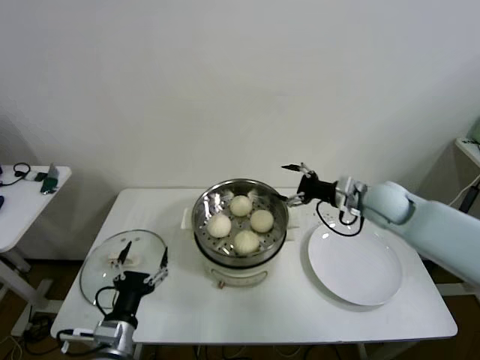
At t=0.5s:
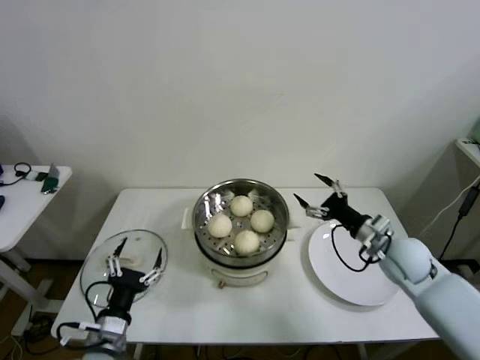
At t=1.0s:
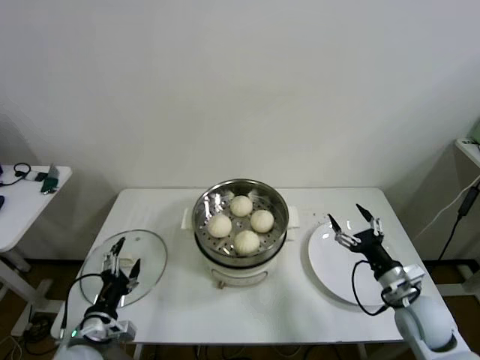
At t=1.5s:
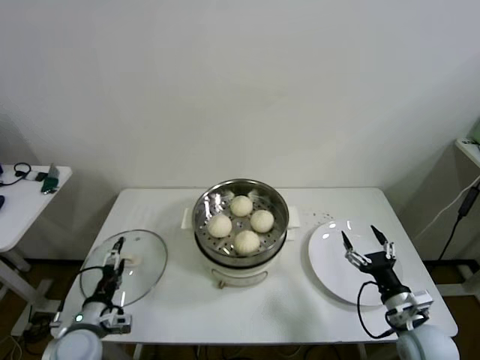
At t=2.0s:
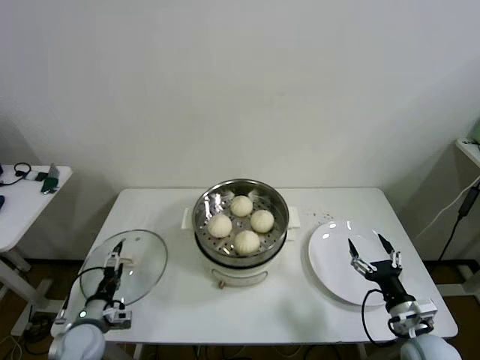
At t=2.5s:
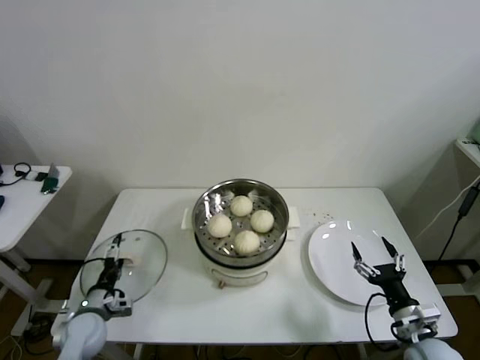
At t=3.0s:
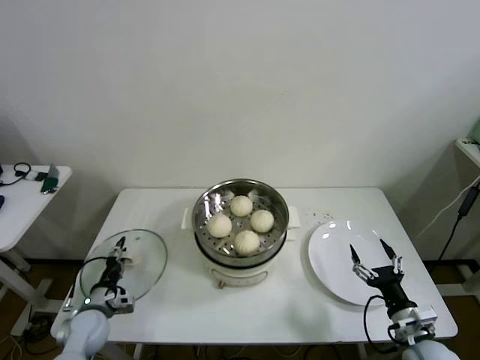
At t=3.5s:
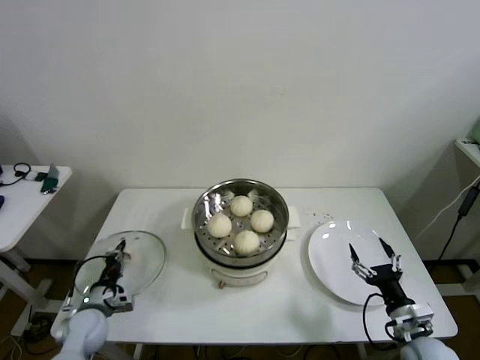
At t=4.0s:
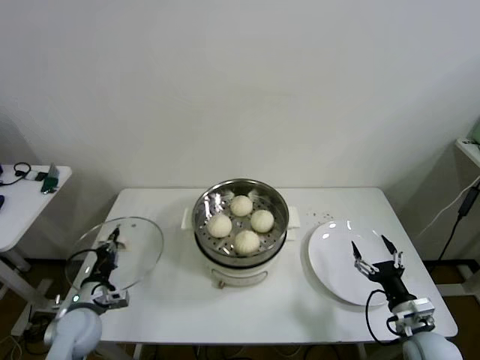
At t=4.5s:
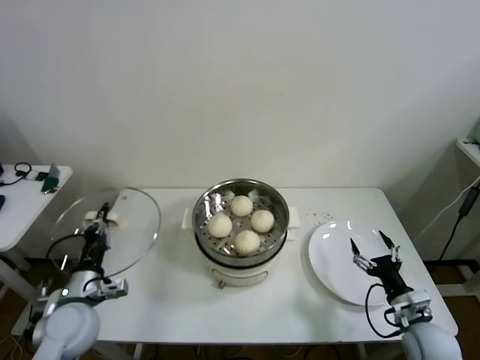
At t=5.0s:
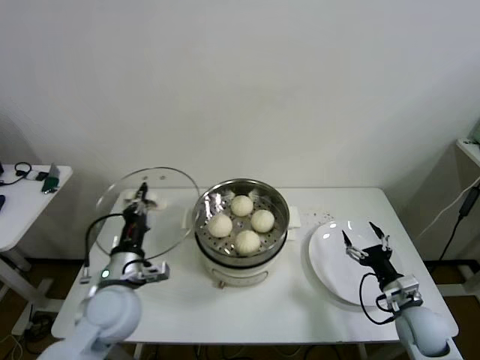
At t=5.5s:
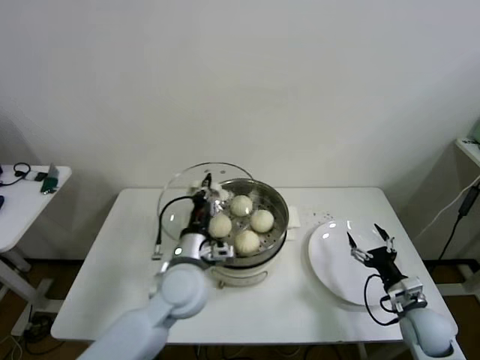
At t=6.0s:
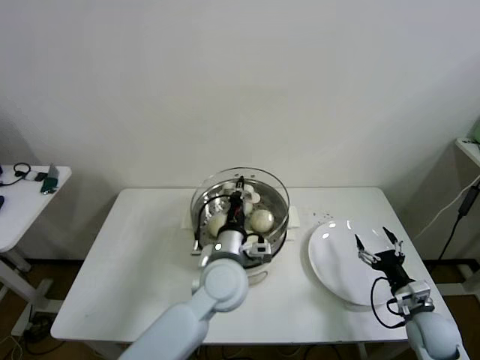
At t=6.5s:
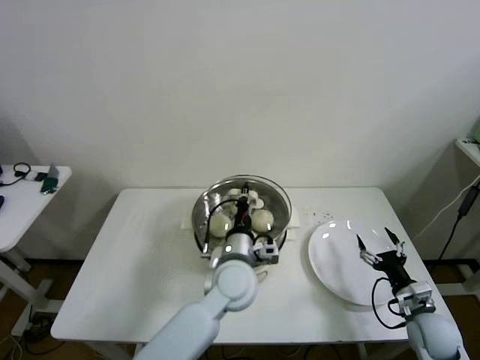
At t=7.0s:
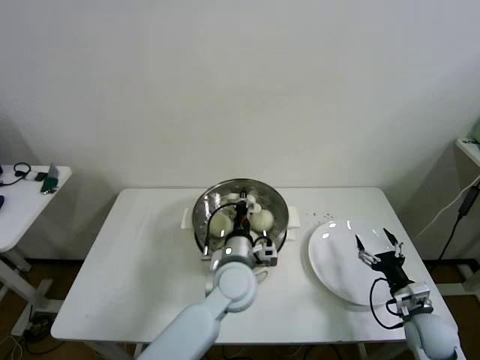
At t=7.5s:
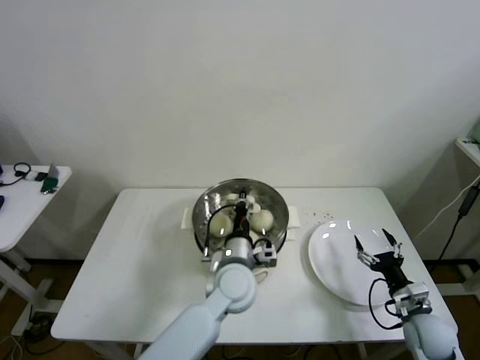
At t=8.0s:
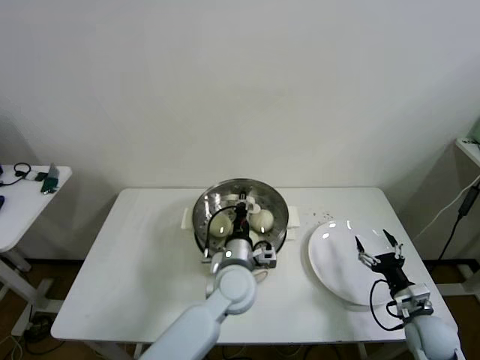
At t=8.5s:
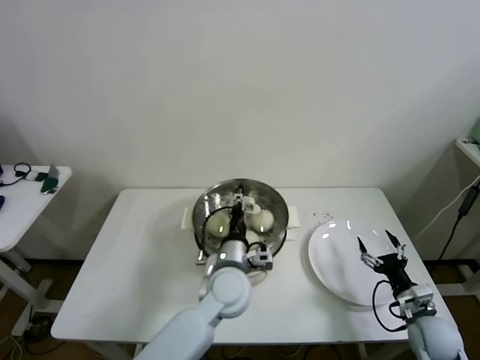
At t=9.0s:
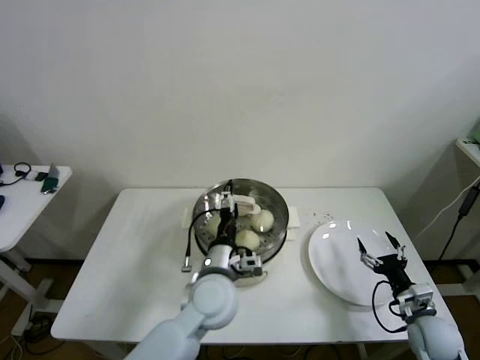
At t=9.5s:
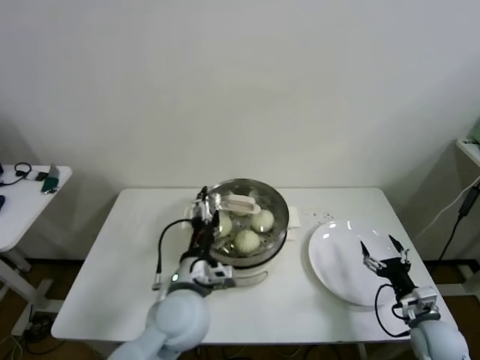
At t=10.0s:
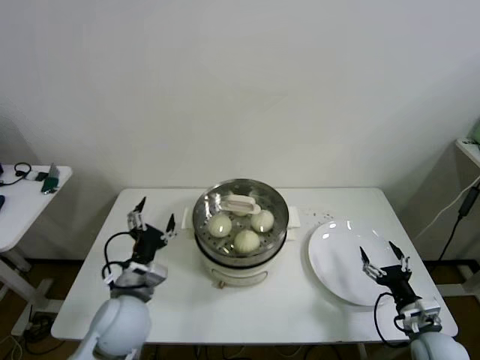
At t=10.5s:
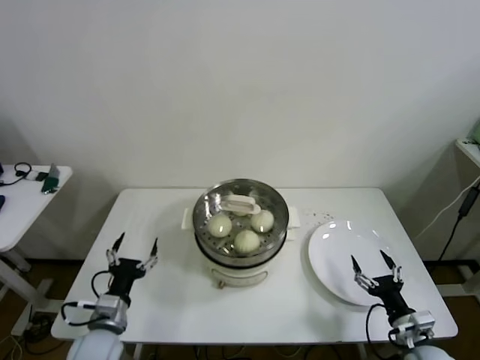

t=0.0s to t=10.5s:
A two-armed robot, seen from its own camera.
Step, t=0.0s to t=3.0s: Grasp the pot lid with left gripper.
Step, t=3.5s to t=8.0s: Place the pot lid on the steamer with left gripper.
t=0.0s to t=2.0s: The left gripper heads to the left, downward and forward, covering some 15 cm; the right gripper moves backward and downward, about 30 cm.
t=2.0s to t=4.0s: The left gripper closes up.
t=4.0s to t=6.5s: The left gripper moves to the right, about 35 cm; the right gripper shifts by some 5 cm.
t=6.5s to t=8.5s: The left gripper opens.
t=8.5s to t=10.5s: The left gripper goes about 25 cm to the left, and opens its fingers. Meanwhile the right gripper goes approximately 5 cm backward.

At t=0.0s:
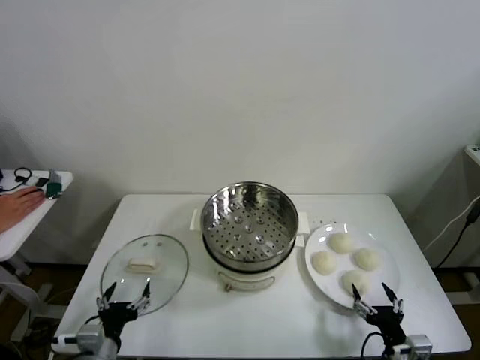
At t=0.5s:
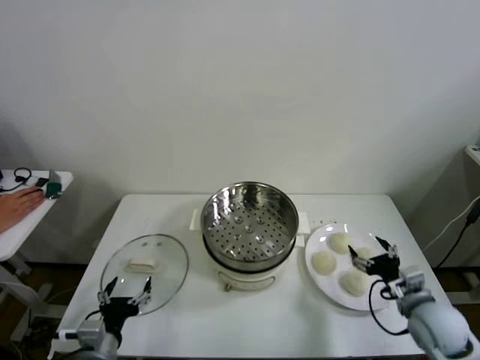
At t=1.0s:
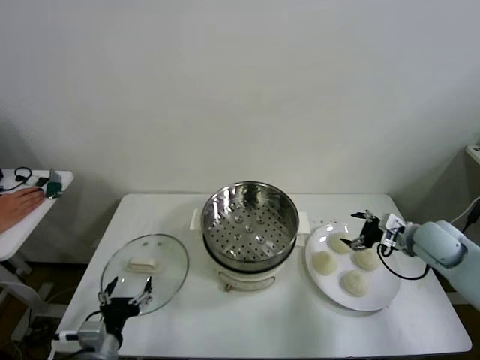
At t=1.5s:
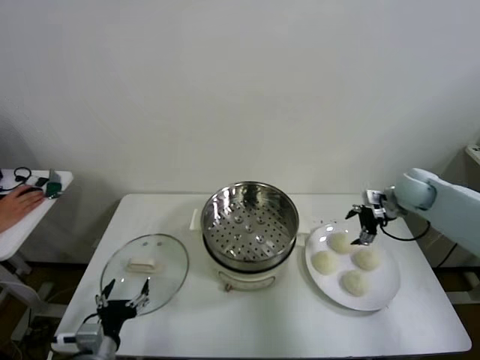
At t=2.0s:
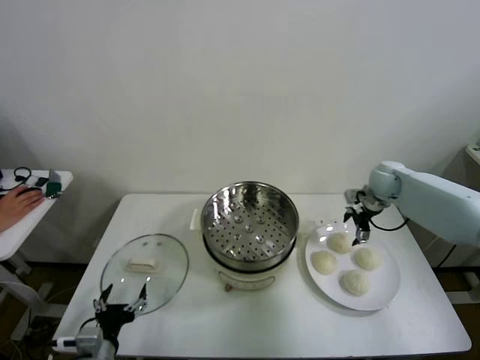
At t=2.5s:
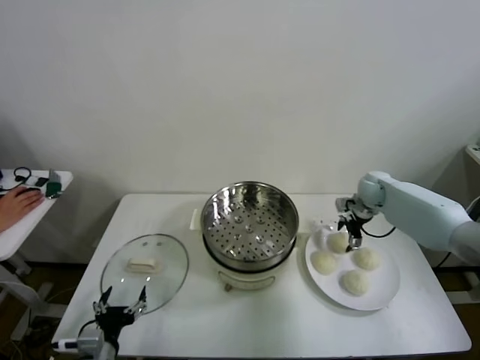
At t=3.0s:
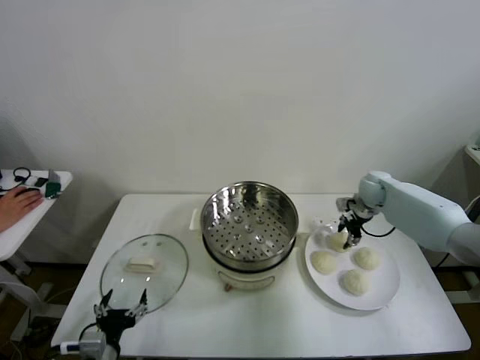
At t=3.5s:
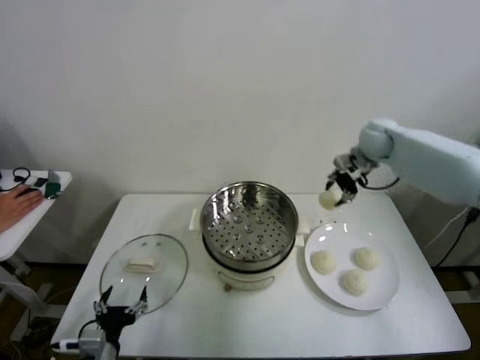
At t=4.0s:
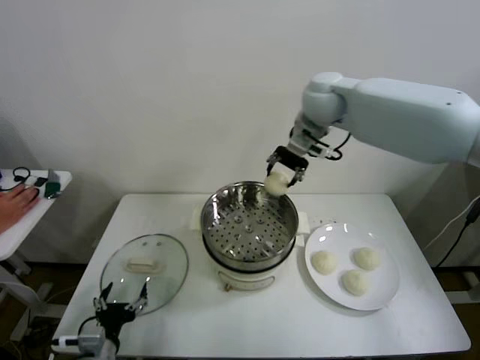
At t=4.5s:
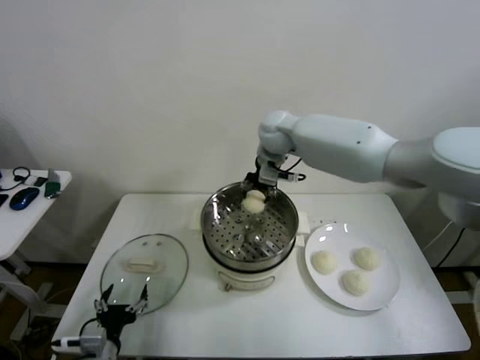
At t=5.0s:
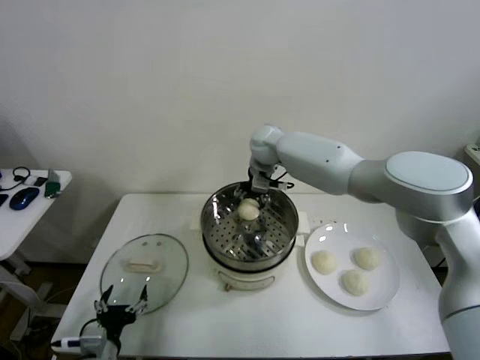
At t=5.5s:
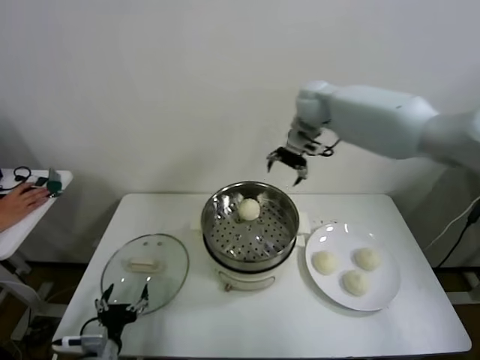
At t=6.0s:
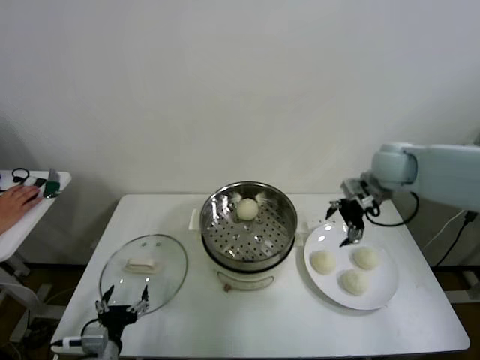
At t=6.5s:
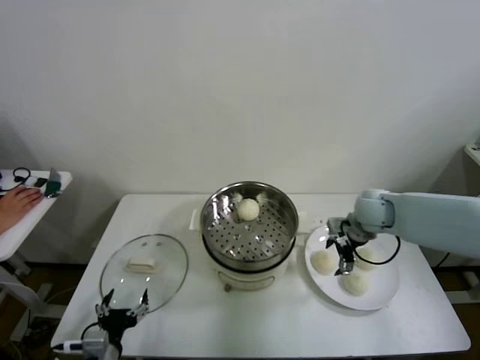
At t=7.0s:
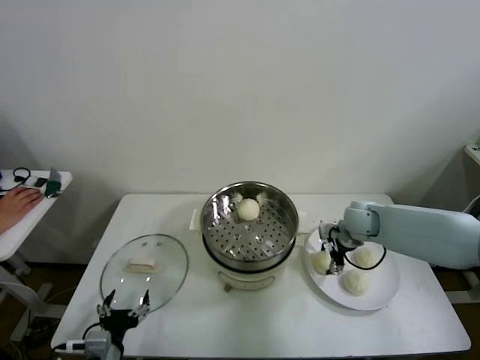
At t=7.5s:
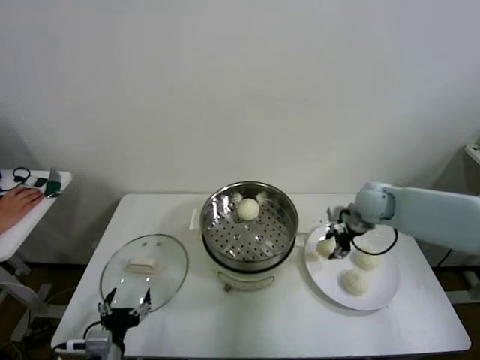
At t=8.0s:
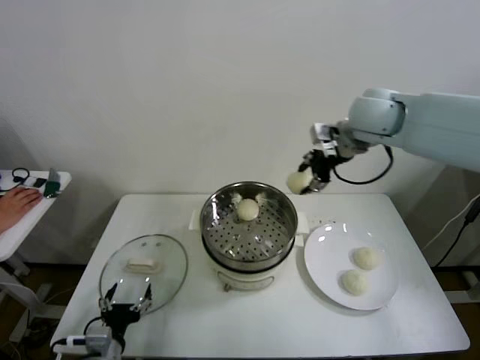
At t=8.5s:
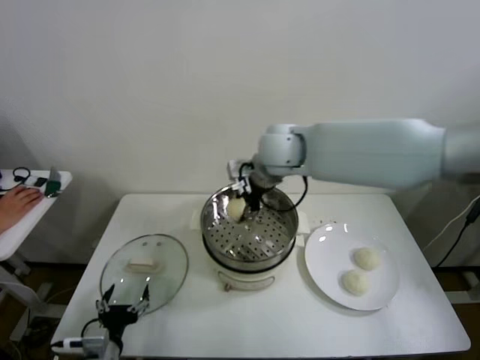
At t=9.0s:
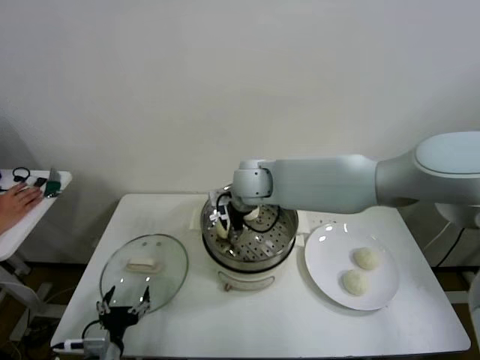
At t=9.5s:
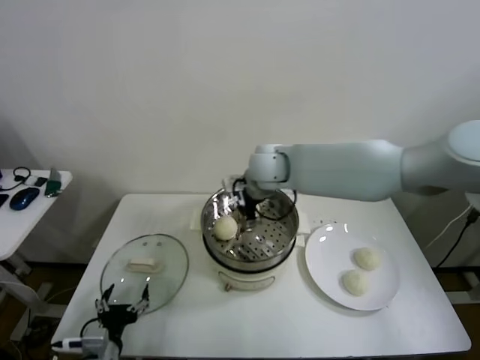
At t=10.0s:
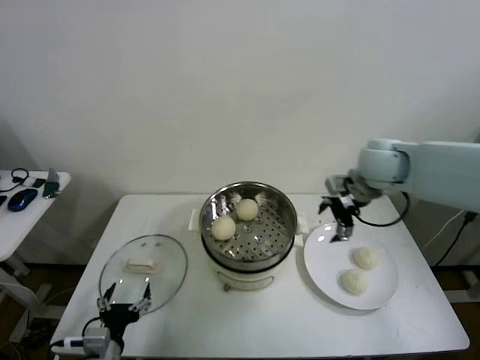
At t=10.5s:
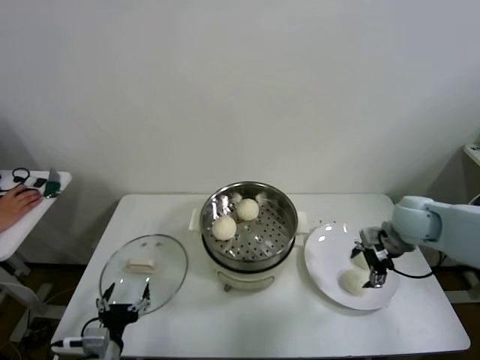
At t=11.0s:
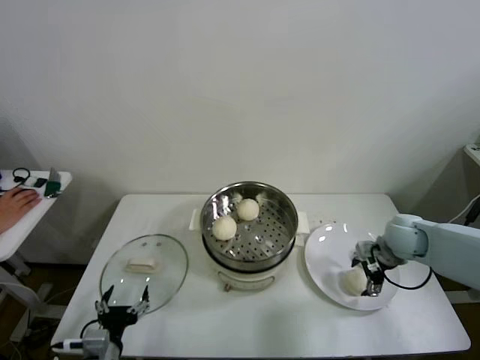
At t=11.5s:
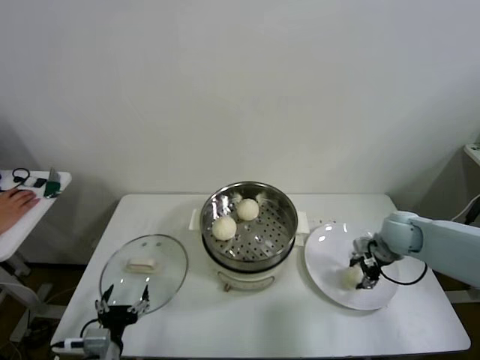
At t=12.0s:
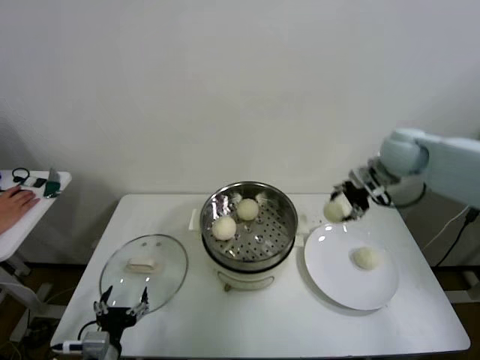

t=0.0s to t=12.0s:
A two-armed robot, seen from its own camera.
Step, t=0.0s to t=2.5s: Grasp the baozi in the plate with right gripper.
Step, t=3.0s to t=5.0s: Place the baozi on the steamer with right gripper.
Step, t=5.5s to t=7.0s: Grasp the baozi in the plate with right gripper.
Step, t=7.5s to t=9.0s: Place the baozi on the steamer with right gripper.
Step, t=9.5s to t=11.0s: Grasp the baozi in the plate with right gripper.
t=2.0s to t=4.0s: The right gripper heads to the left and upward, covering roughly 35 cm, and closes its fingers.
t=4.0s to t=6.0s: The right gripper heads to the right and downward, covering some 25 cm, and opens.
t=6.0s to t=8.0s: The right gripper shifts roughly 20 cm upward and to the left, and closes.
t=8.0s to t=10.0s: The right gripper heads downward, covering roughly 10 cm, goes to the left and returns, roughly 20 cm each way, and opens up.
t=10.0s to t=12.0s: The right gripper moves approximately 15 cm downward and comes back, and closes its fingers.

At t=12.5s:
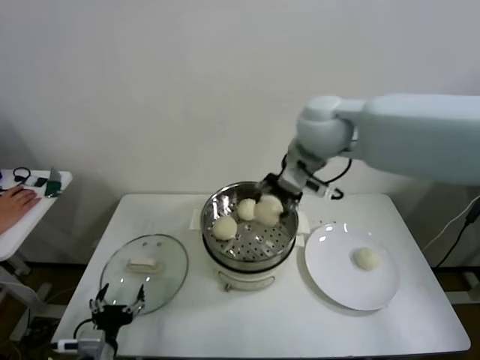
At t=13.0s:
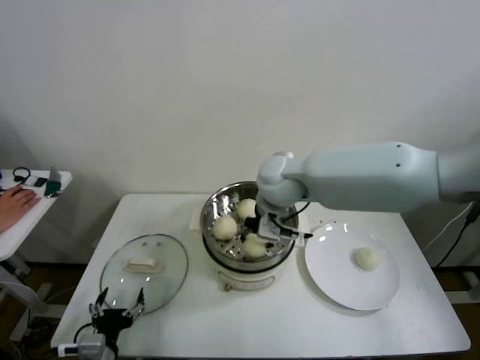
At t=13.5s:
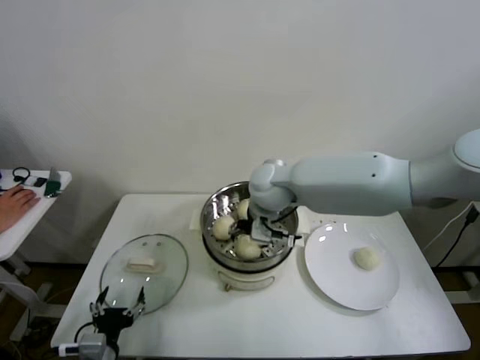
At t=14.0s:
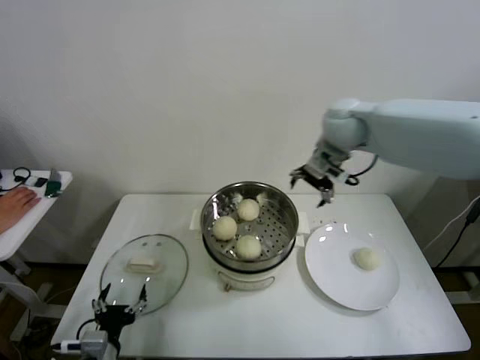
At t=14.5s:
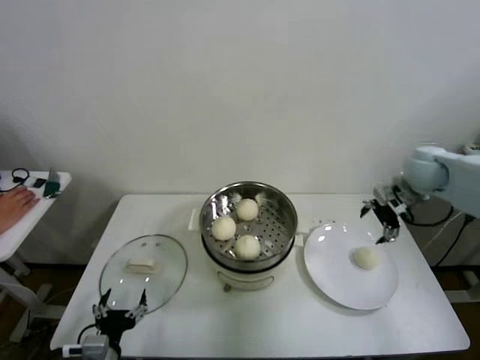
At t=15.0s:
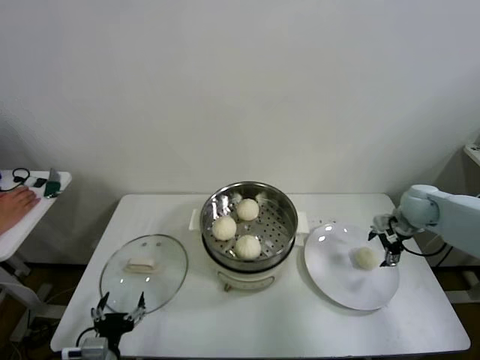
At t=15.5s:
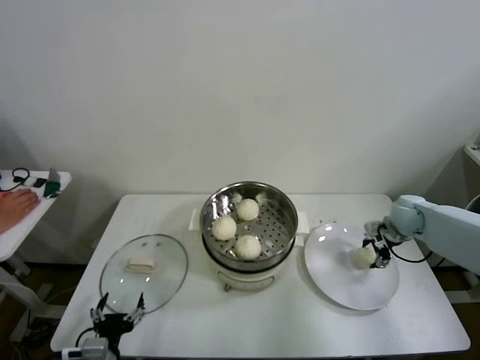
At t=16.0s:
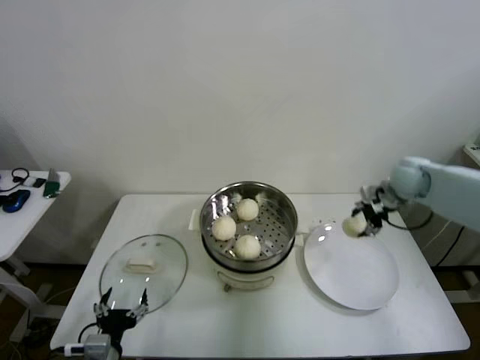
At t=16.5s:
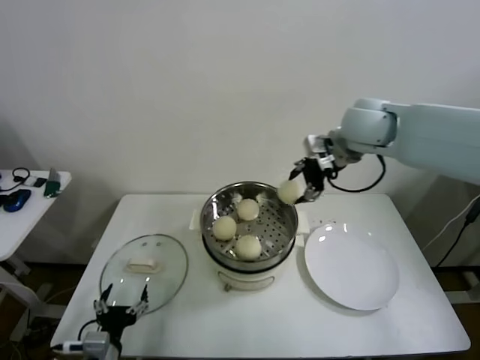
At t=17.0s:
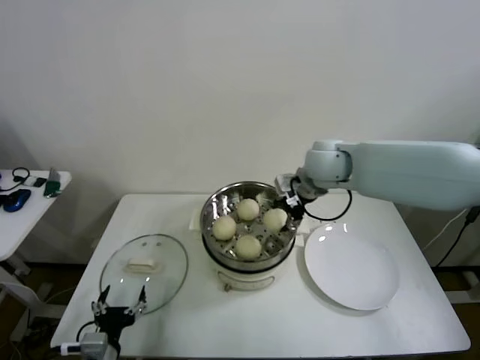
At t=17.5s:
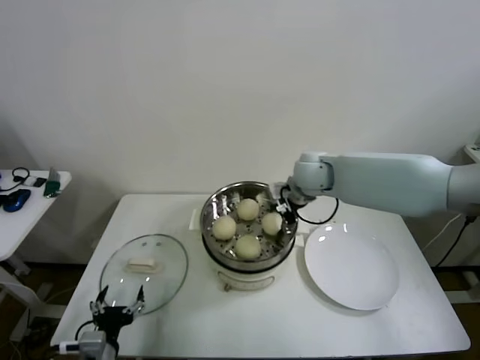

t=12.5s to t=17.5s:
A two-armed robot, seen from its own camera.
Step, t=13.5s to t=15.5s: Grasp the baozi in the plate with right gripper.
Step, t=16.0s to t=17.5s: Place the baozi on the steamer with right gripper.
t=12.5s to t=15.0s: The right gripper heads to the right and downward, covering about 40 cm, and opens its fingers.
t=15.0s to t=17.5s: The right gripper is displaced to the left by some 25 cm, and closes up.
